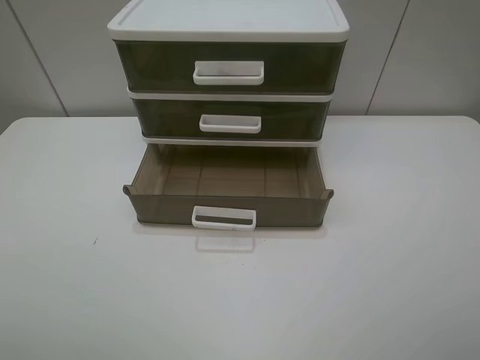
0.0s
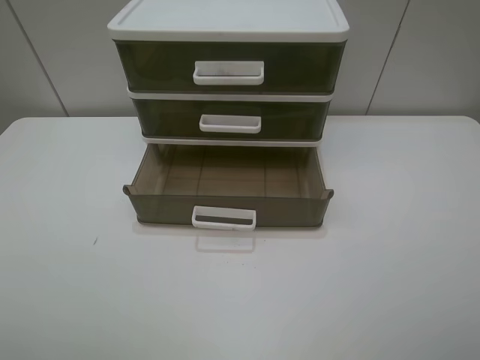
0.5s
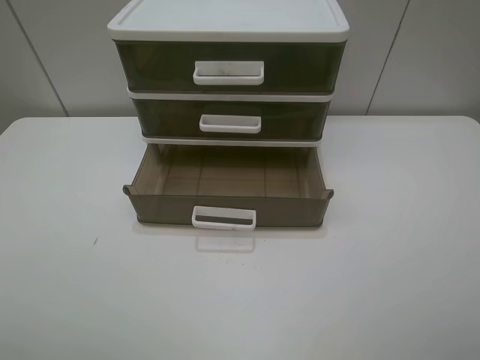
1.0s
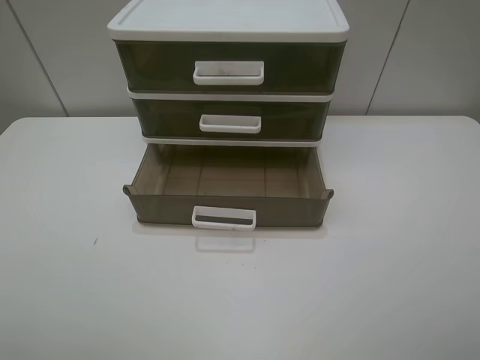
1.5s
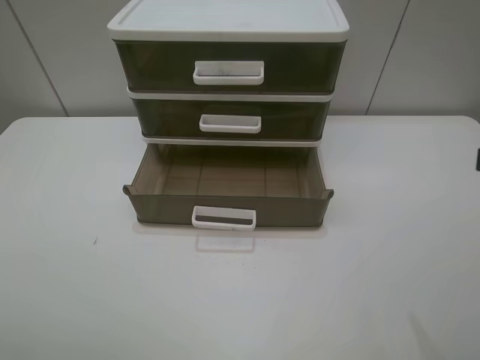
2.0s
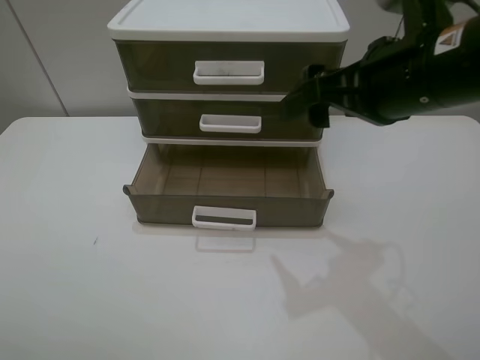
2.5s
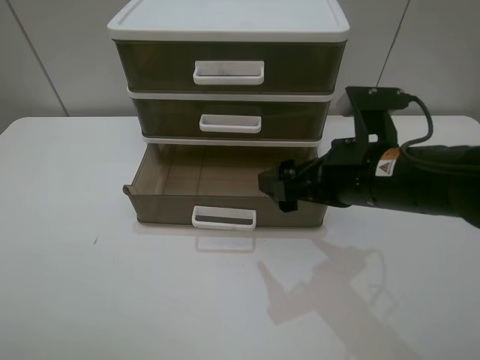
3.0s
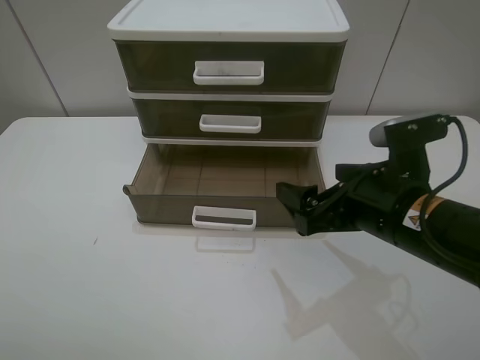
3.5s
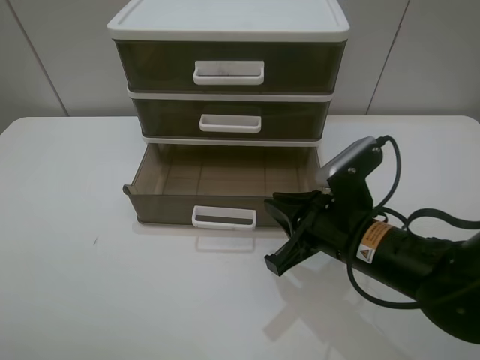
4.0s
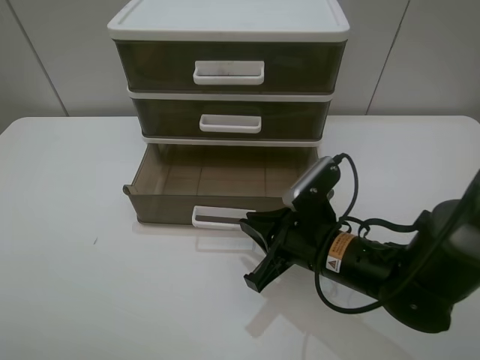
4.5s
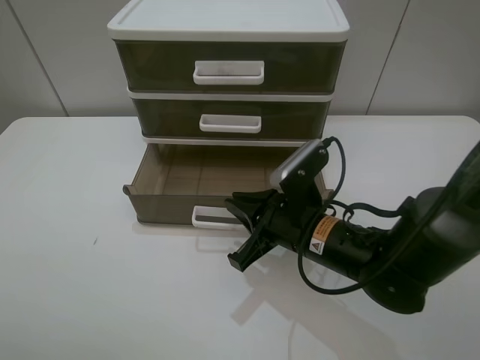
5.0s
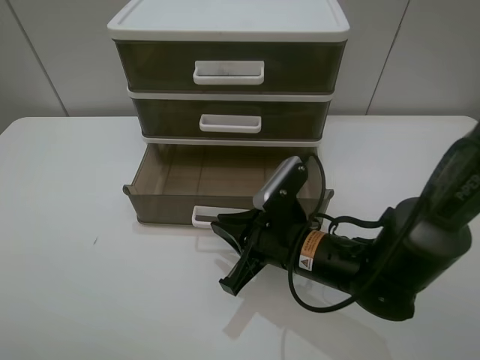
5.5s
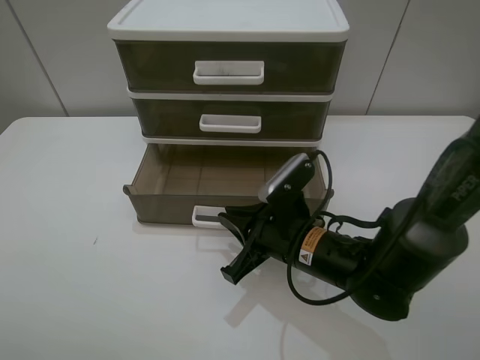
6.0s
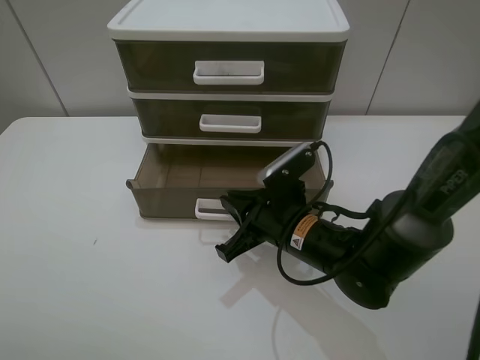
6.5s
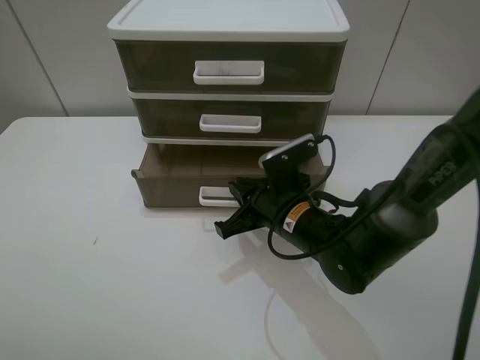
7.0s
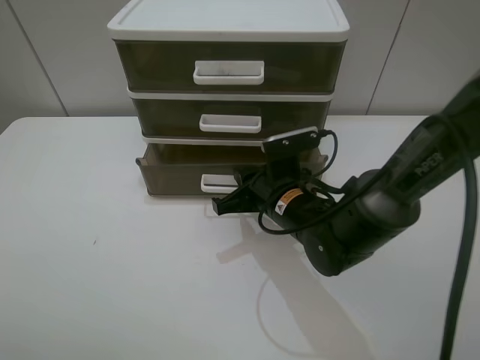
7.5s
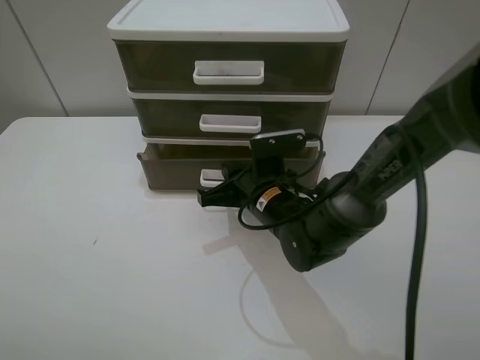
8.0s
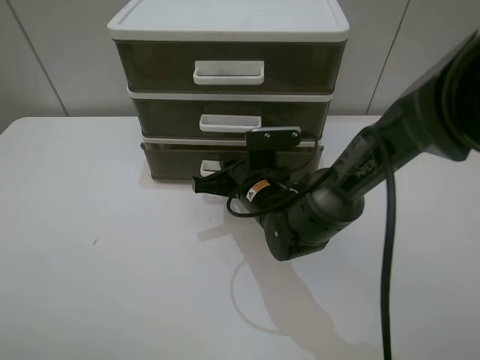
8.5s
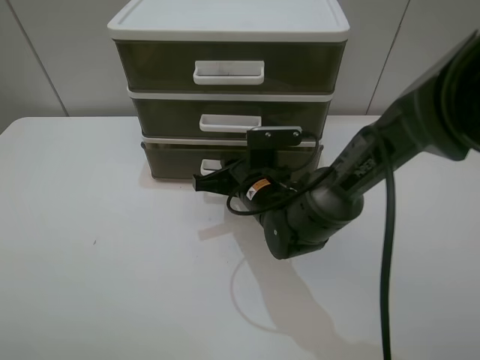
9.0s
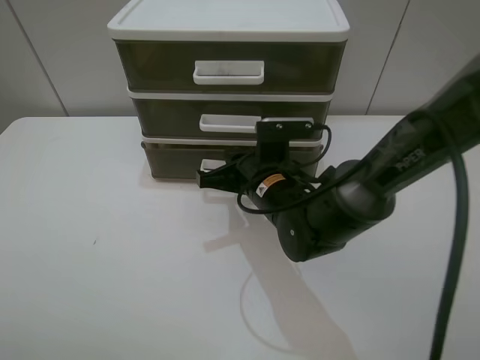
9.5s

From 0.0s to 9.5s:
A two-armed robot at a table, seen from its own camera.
Task of the whole recording: close the bottom drawer.
Step, from 0.0s to 6.0s: Use the right gripper to contact the bottom layer of the storage cabinet.
Step, from 6.5s to 9.0s: Push the bottom drawer closed.
From 2.0s to 4.0s: The right gripper is displaced downward, to the left and forward by some 25 cm, and closes.
From 4.0s to 5.5s: The right gripper goes some 5 cm to the left.
From 5.5s to 7.5s: The right gripper goes about 5 cm forward.
From 7.5s to 9.5s: The grippers make only small movements.

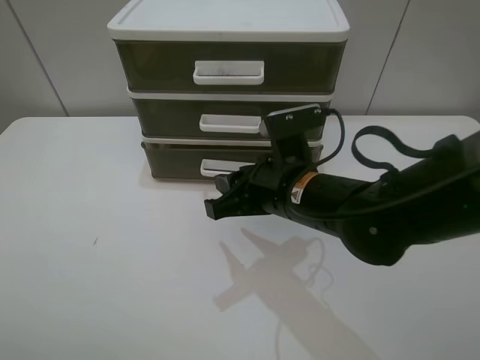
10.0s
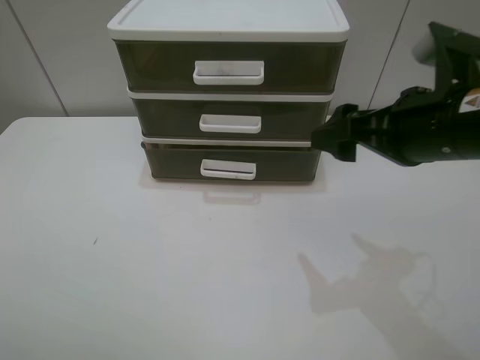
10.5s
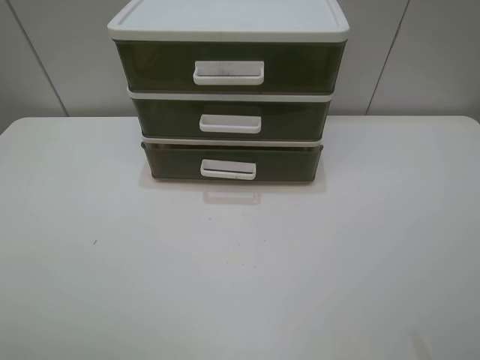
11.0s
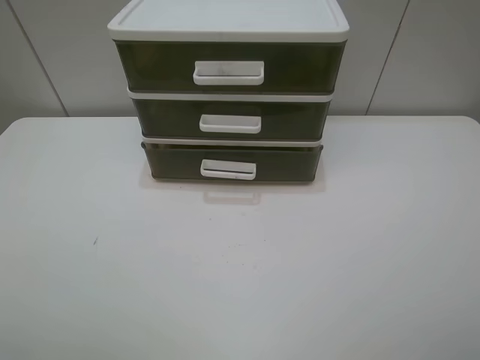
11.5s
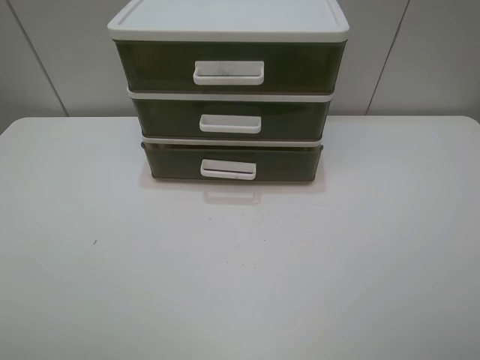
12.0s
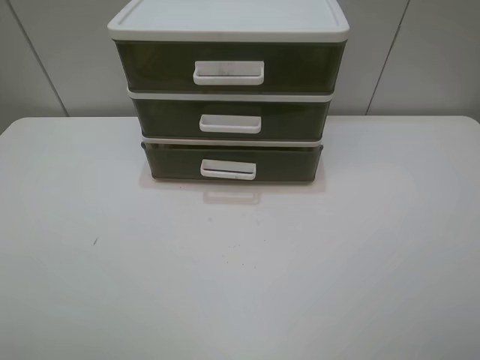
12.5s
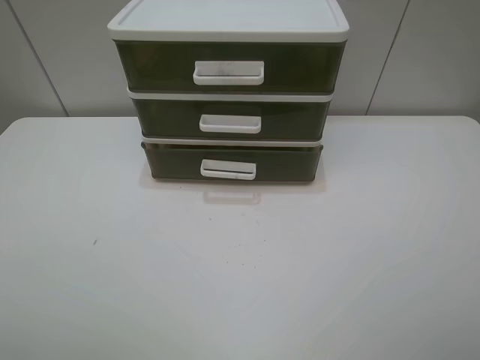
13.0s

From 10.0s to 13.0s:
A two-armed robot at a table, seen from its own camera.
Task of the whole recording: close the bottom drawer.
From 10.0s to 11.5s: The right gripper shifts approximately 35 cm backward, to the right and upward, and opens up.
